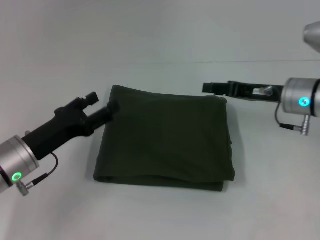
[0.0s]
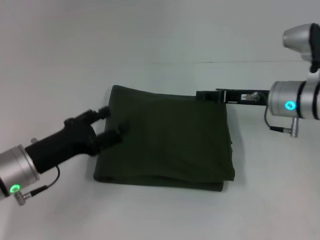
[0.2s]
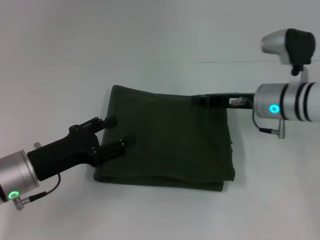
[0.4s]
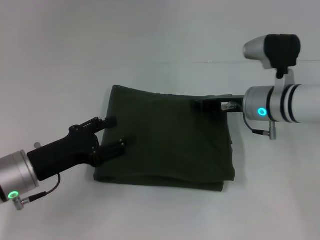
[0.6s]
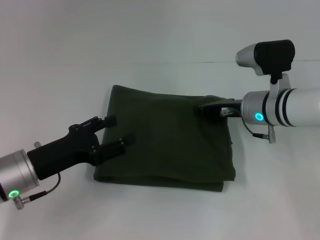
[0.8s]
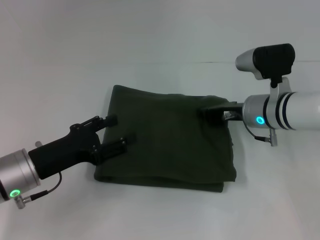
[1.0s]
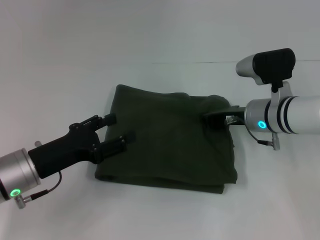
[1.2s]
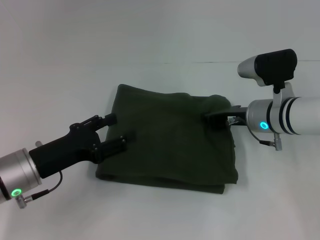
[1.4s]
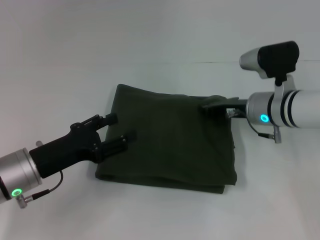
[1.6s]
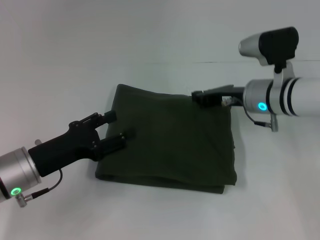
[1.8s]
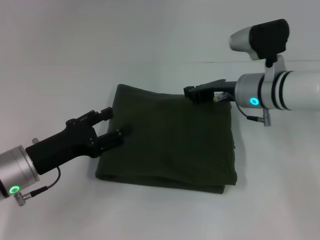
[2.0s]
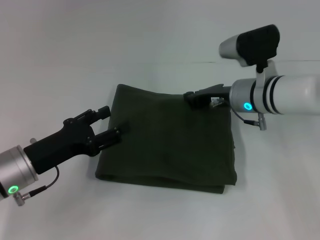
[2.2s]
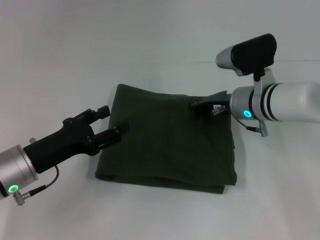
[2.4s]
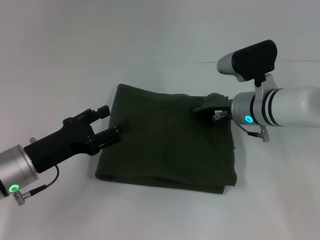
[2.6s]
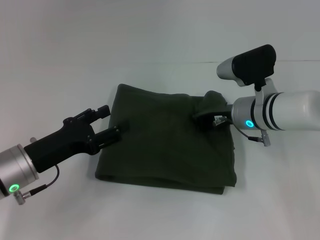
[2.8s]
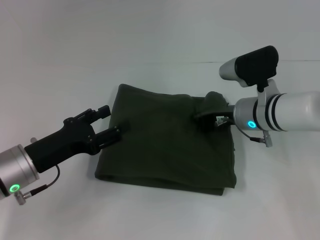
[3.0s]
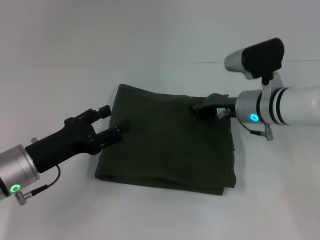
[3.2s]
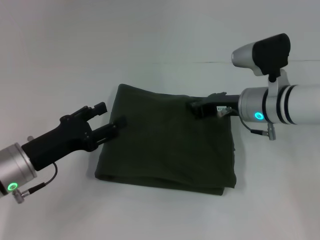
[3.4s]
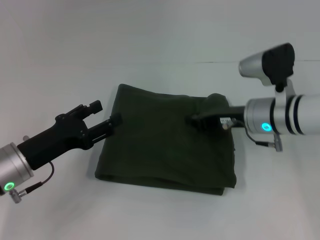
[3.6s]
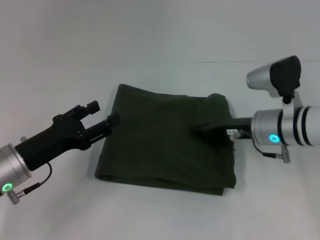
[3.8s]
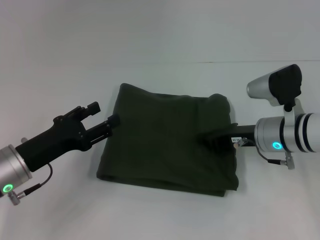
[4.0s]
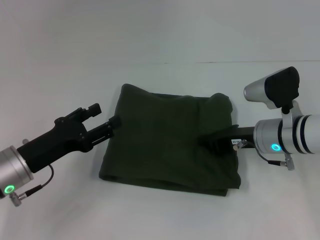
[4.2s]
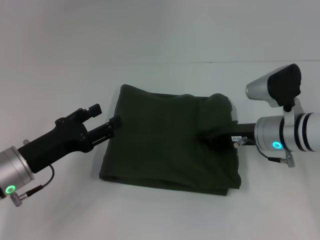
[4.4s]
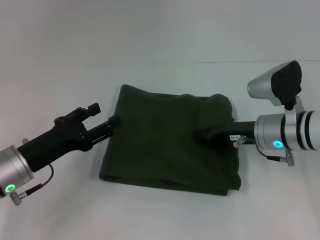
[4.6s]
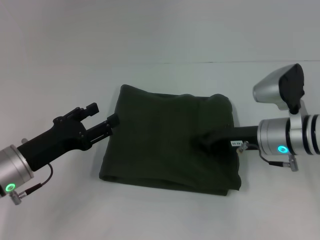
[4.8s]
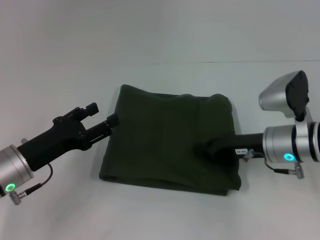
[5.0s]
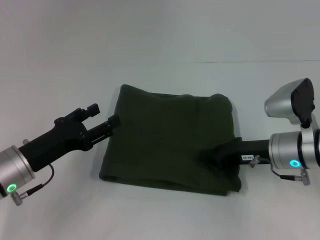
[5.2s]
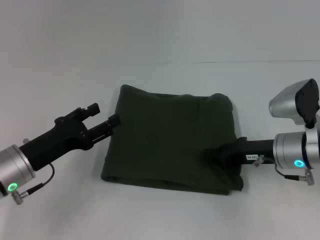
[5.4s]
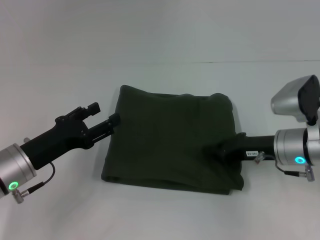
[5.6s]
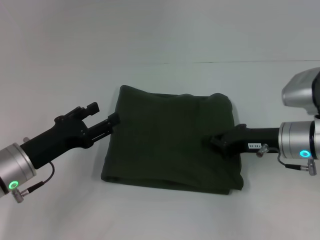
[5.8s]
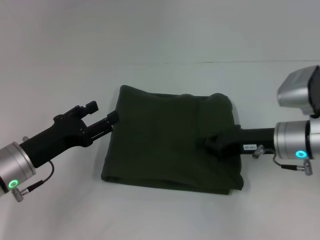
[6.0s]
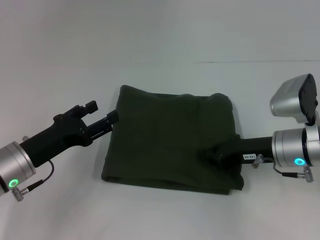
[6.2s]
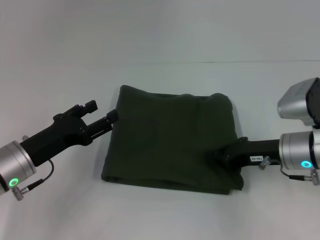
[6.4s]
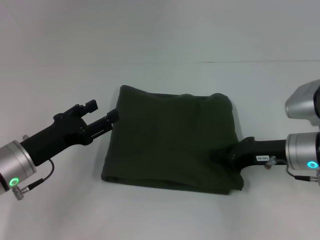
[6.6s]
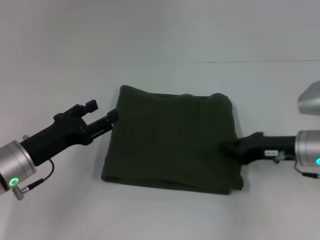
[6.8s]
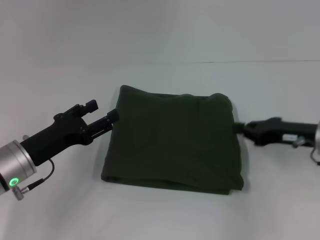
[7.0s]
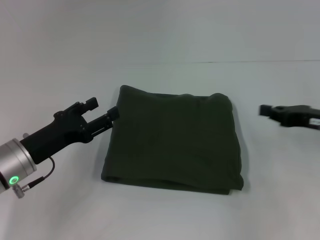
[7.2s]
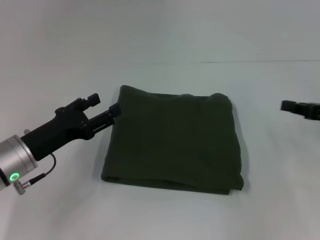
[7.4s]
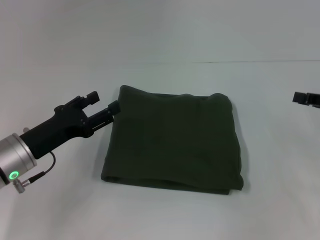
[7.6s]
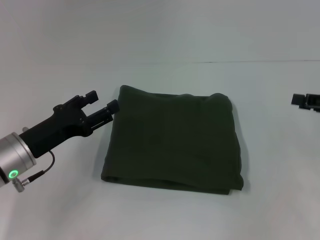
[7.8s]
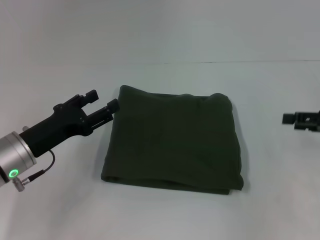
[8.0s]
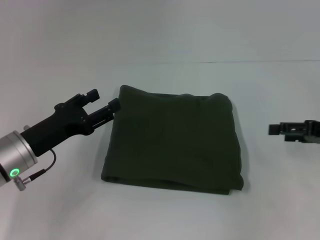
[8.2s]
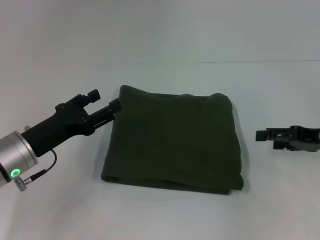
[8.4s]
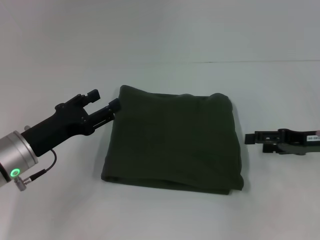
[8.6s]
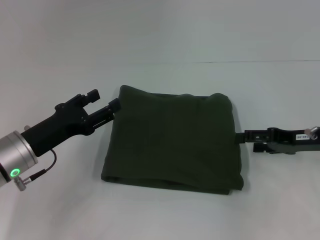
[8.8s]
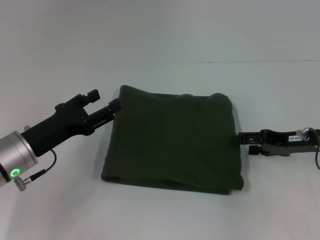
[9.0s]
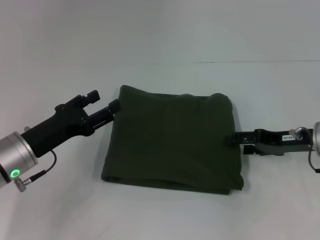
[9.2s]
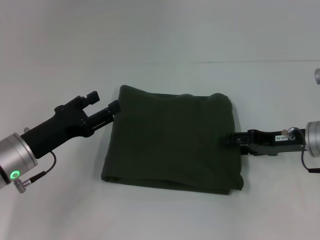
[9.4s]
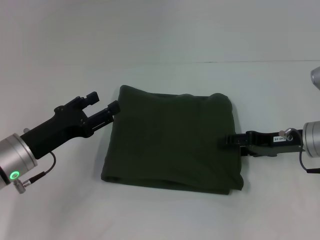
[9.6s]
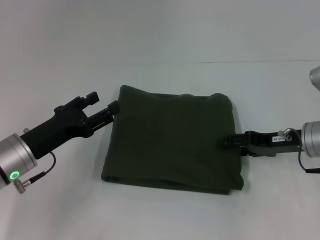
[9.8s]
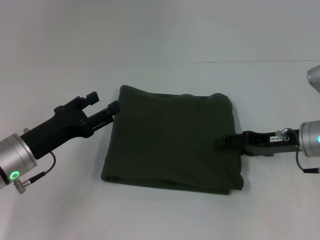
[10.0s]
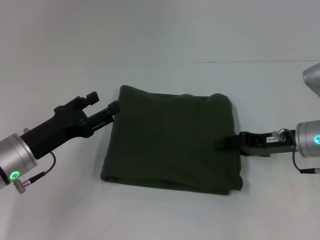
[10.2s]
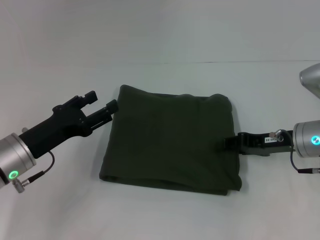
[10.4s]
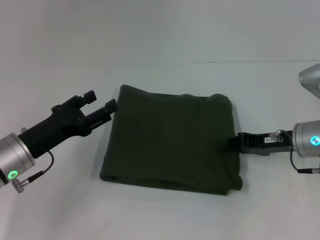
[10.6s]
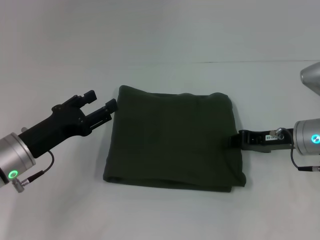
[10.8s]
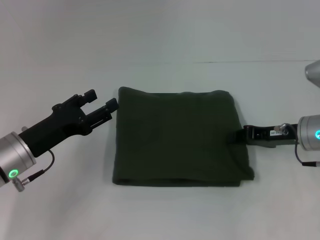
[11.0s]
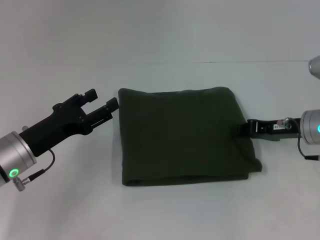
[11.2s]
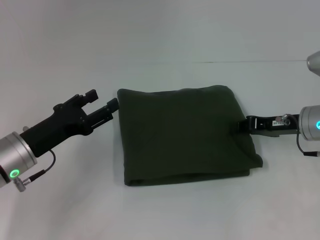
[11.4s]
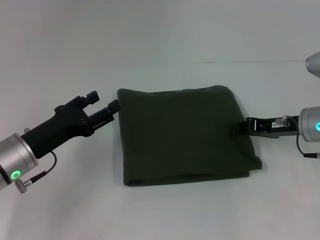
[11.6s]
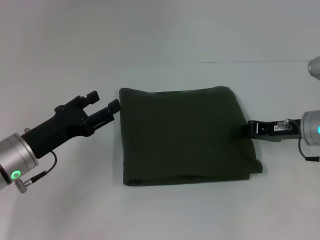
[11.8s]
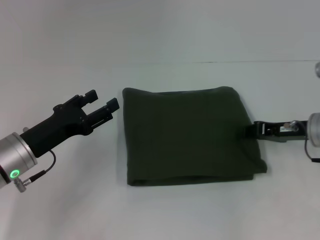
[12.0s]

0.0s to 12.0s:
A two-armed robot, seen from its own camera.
0.0s to 1.6s: The right gripper changes place by approximately 5 cm, and closes.
1.6s to 4.4s: The grippers make only small movements.
4.4s to 6.0s: The grippers move only a little.
6.0s to 7.6s: The right gripper is displaced to the right by roughly 15 cm.
7.6s to 9.0s: The right gripper is displaced to the left by approximately 10 cm, and opens.
9.0s to 10.4s: The grippers move only a little.
10.4s to 12.0s: The right gripper closes.

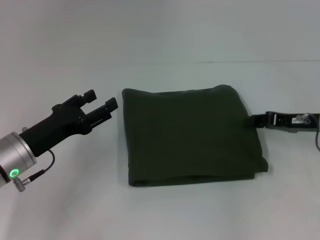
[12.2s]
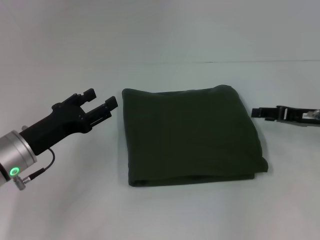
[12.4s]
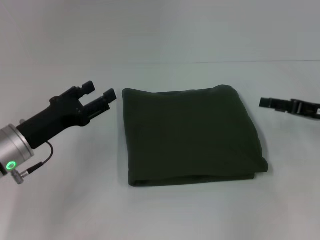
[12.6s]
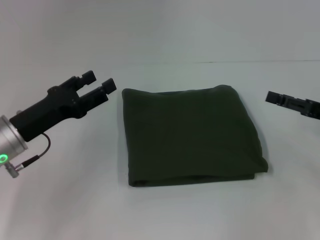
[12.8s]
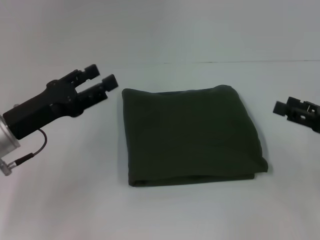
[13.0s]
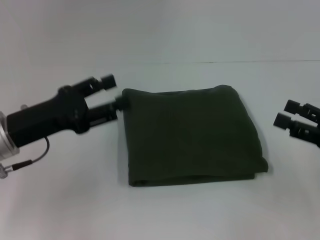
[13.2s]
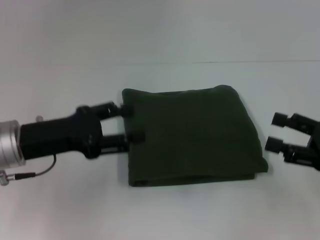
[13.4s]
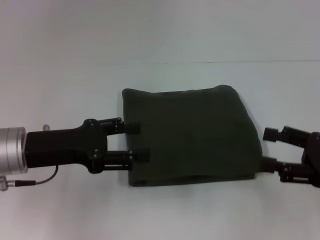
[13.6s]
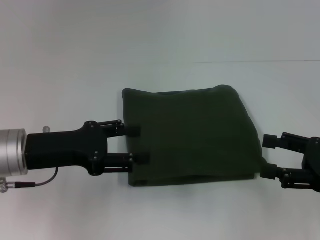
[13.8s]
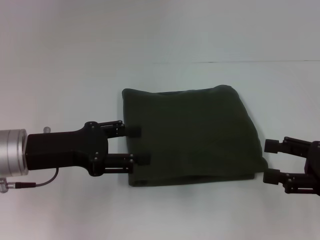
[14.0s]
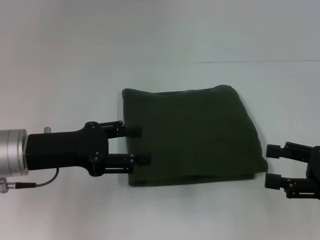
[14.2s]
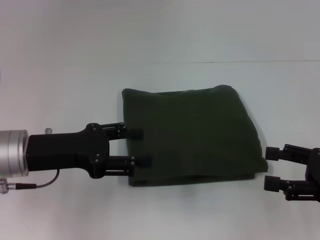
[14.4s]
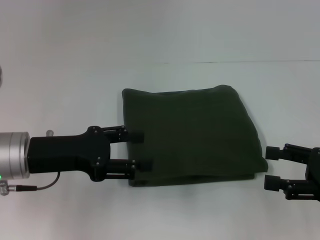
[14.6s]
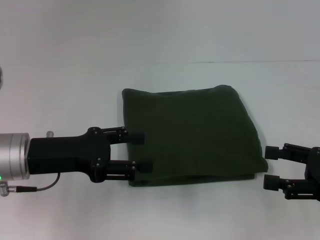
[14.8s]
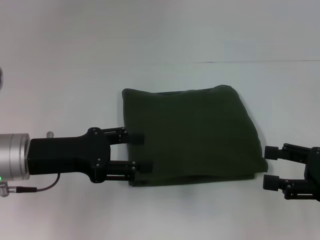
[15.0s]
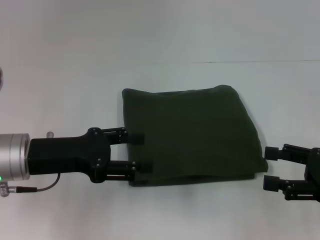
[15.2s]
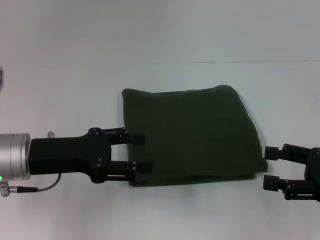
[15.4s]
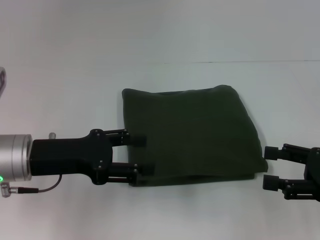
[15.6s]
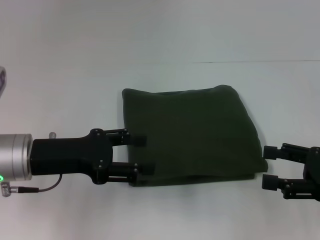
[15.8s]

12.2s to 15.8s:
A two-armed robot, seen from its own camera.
12.2s to 14.0s: The left gripper is displaced upward by approximately 5 cm, while the right gripper is displaced backward by about 10 cm, and opens up.
14.0s to 15.8s: Both grippers stay put.

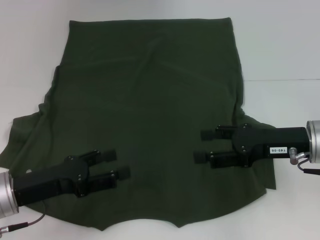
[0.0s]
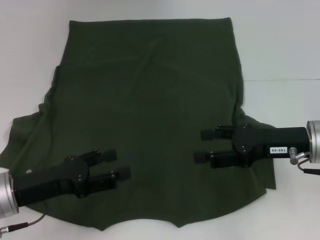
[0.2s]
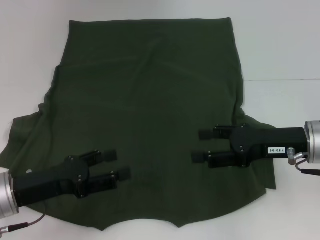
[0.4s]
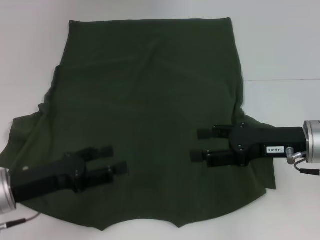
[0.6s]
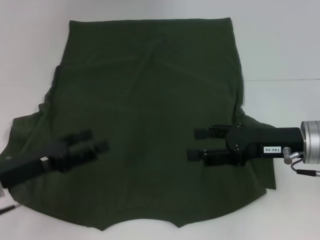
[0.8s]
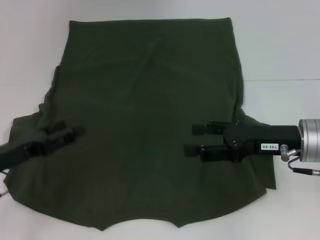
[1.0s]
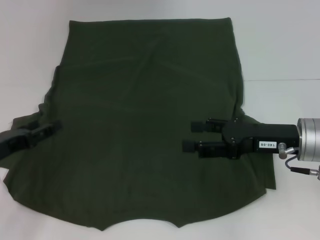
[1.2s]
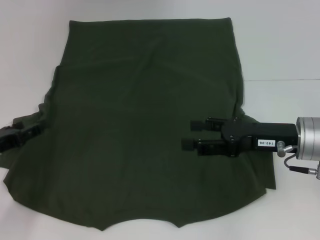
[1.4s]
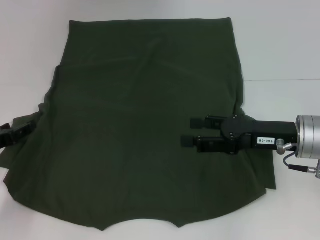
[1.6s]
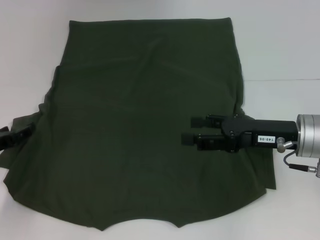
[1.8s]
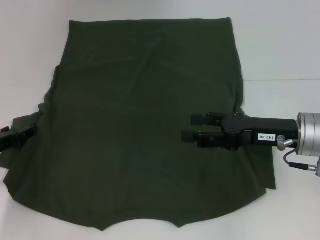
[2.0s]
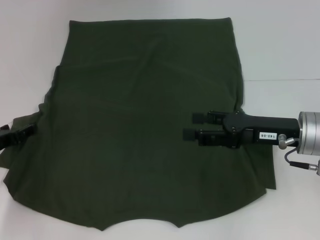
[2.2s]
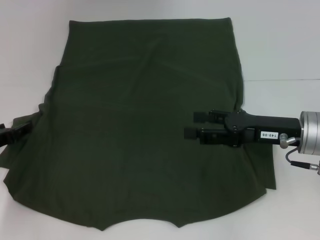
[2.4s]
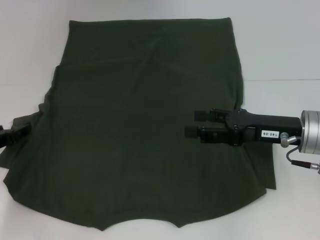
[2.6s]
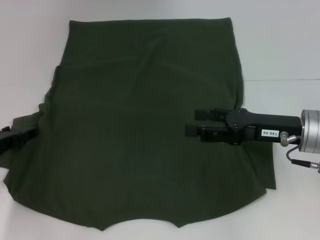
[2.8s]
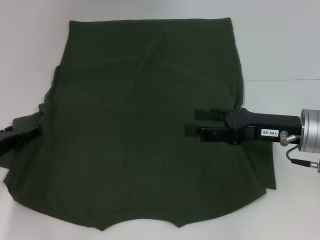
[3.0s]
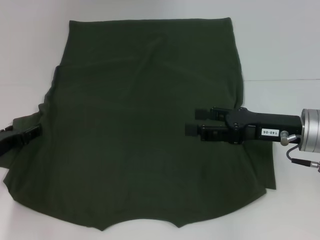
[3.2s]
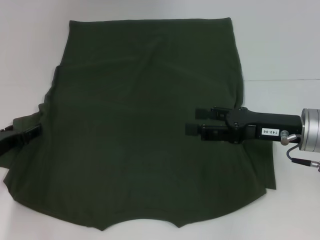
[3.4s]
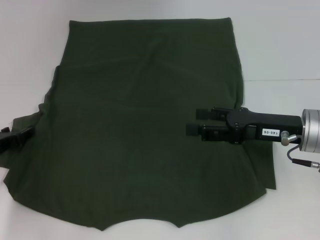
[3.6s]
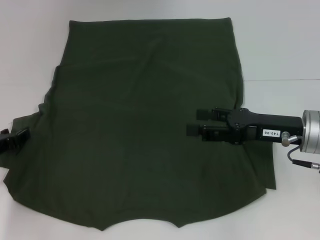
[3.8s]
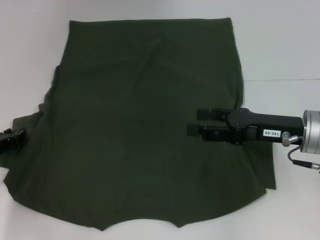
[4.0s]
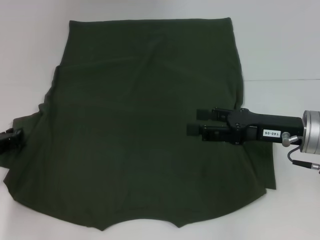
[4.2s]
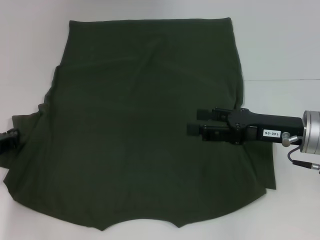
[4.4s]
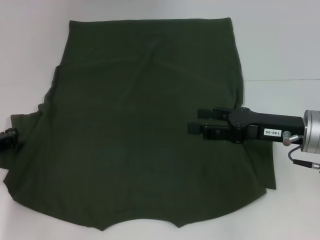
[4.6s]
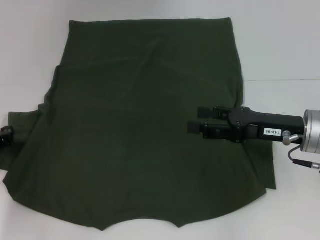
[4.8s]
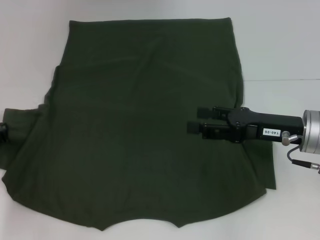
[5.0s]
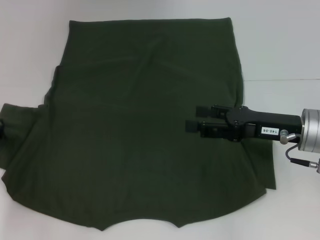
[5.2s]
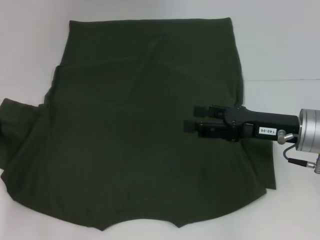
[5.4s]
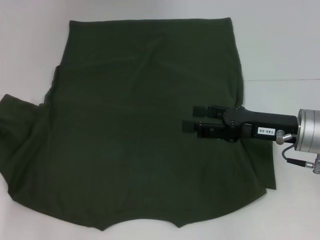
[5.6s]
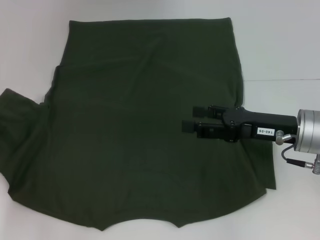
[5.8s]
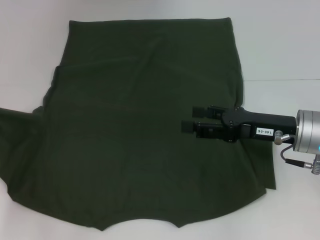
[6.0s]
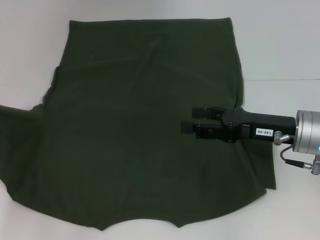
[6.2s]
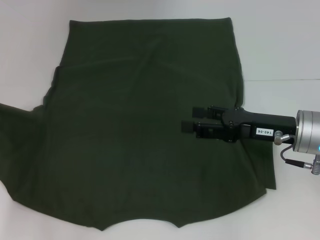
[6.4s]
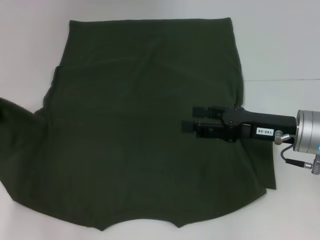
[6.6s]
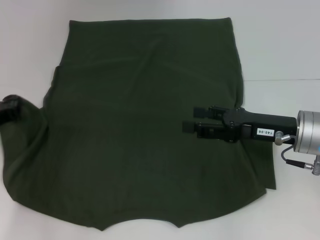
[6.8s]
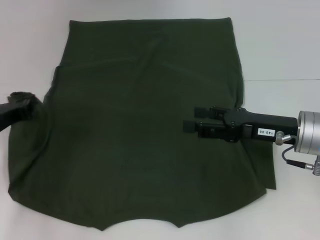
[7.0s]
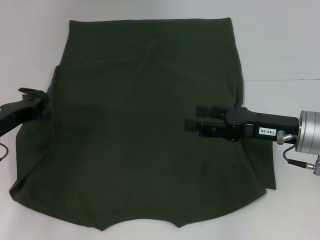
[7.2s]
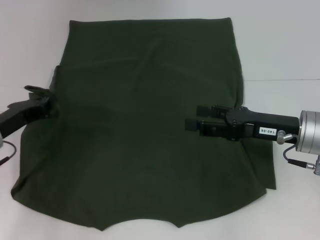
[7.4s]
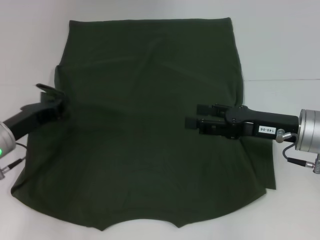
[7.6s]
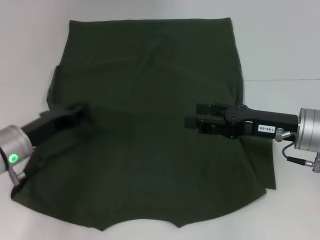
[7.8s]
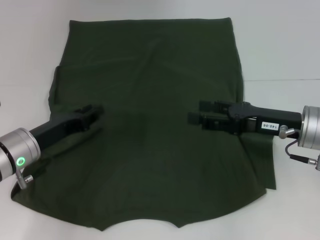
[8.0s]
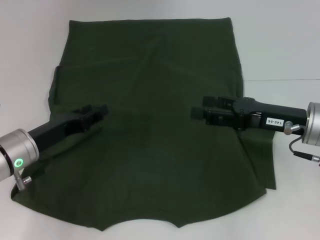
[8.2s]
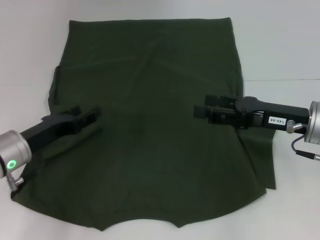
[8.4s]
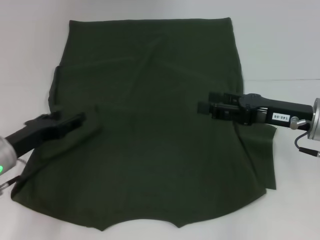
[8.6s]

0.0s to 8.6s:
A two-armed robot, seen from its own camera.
0.0s to 1.4s: The left gripper shifts about 10 cm to the left.
1.4s to 2.8s: The grippers stay close to where they were, moving slightly.
4.4s to 5.8s: There are only small adjustments of the grippers.
5.8s to 7.2s: The left gripper goes roughly 5 cm to the right.
7.2s to 8.6s: The left gripper opens up.
